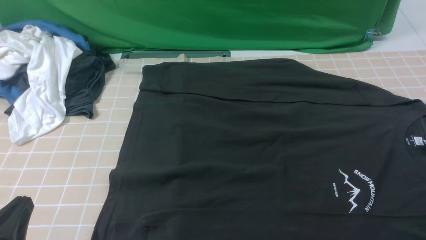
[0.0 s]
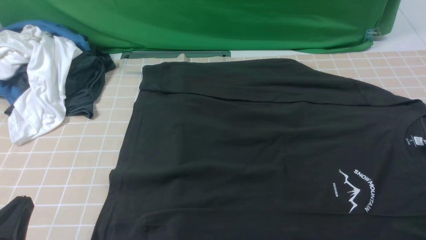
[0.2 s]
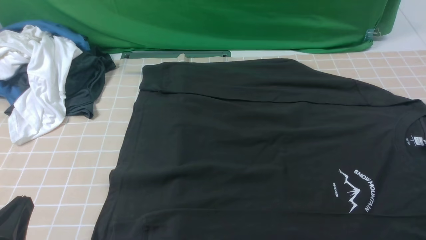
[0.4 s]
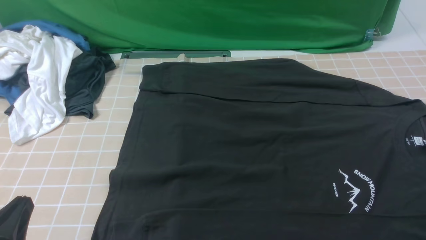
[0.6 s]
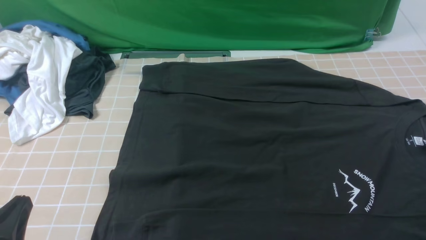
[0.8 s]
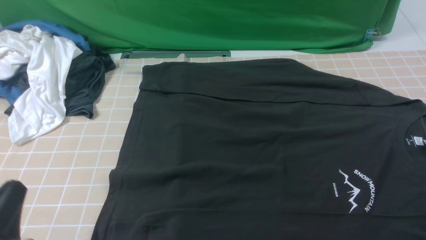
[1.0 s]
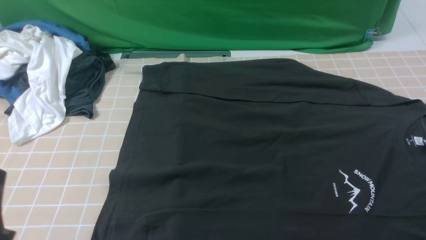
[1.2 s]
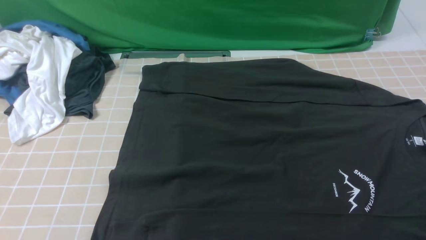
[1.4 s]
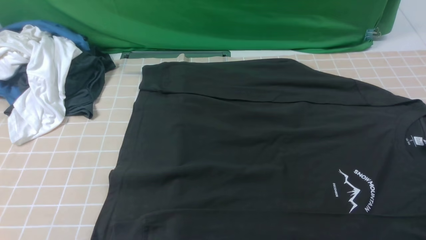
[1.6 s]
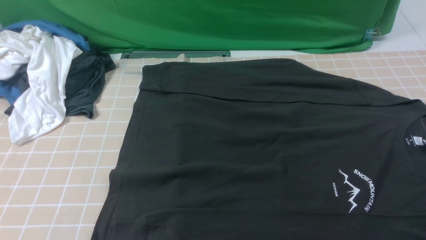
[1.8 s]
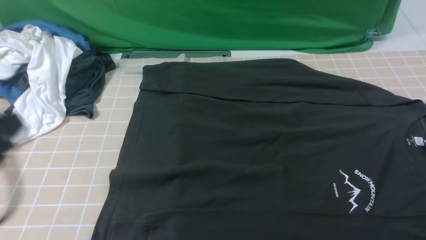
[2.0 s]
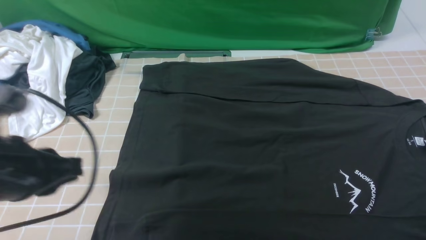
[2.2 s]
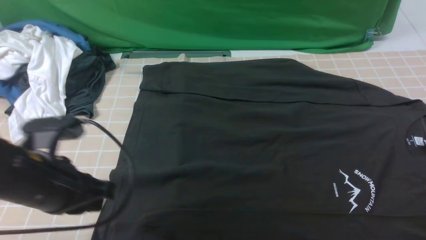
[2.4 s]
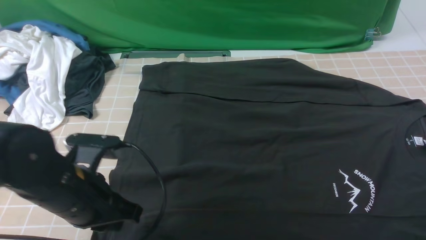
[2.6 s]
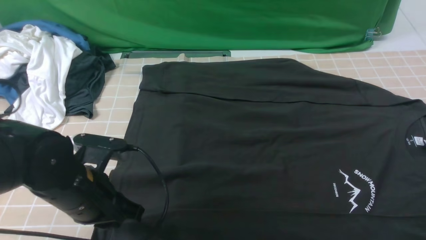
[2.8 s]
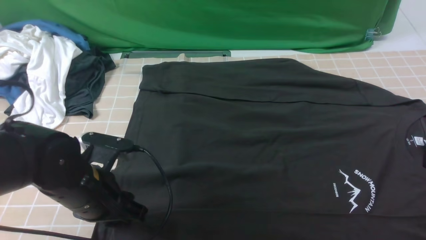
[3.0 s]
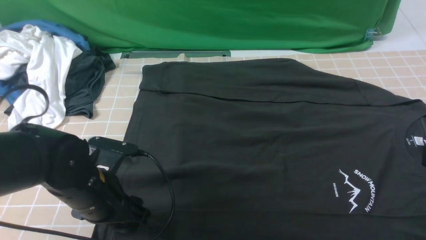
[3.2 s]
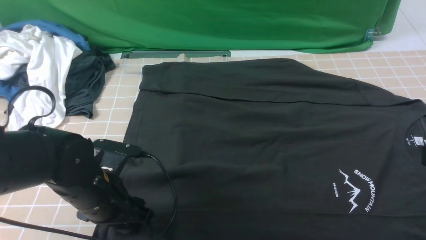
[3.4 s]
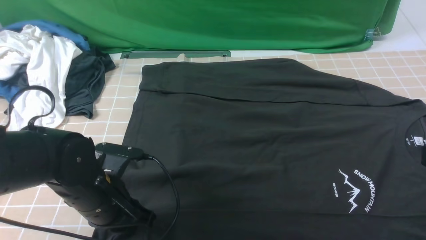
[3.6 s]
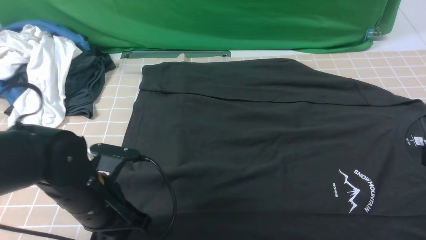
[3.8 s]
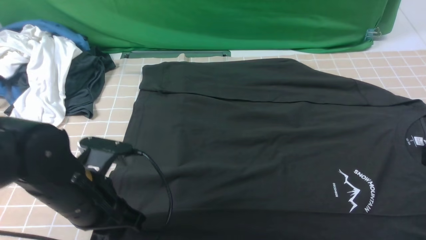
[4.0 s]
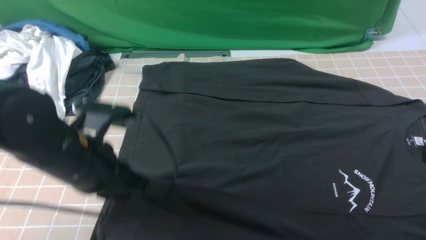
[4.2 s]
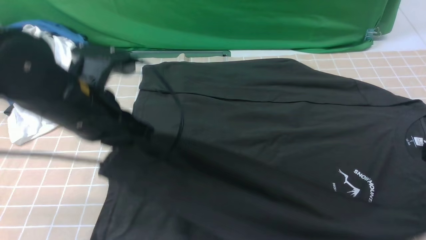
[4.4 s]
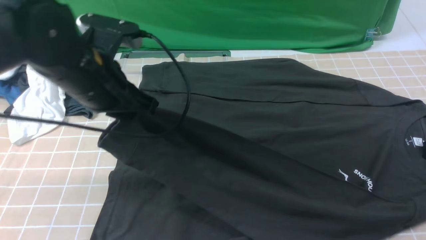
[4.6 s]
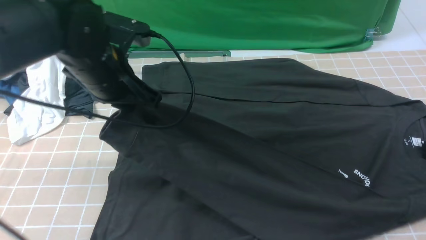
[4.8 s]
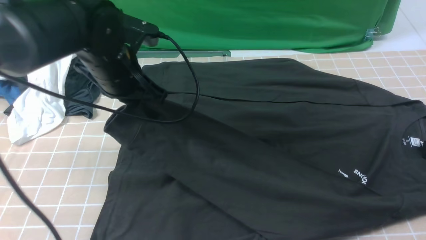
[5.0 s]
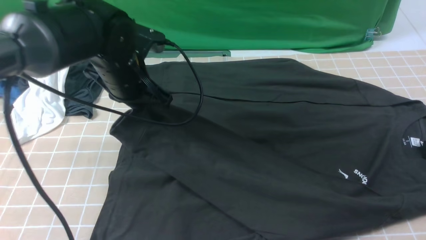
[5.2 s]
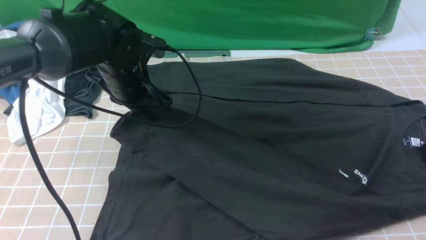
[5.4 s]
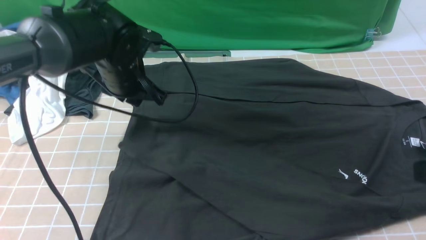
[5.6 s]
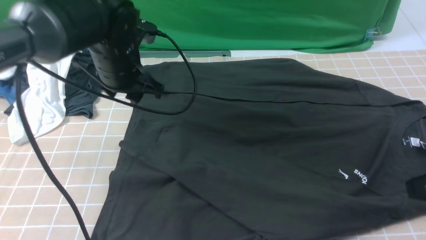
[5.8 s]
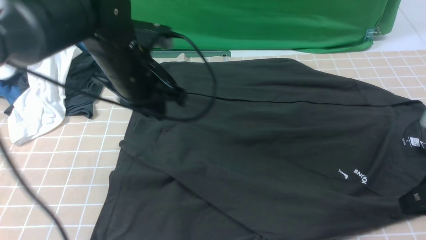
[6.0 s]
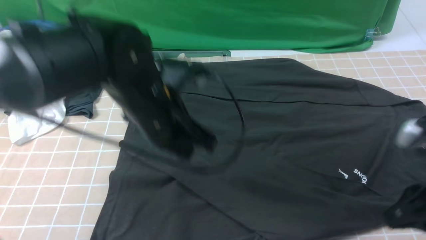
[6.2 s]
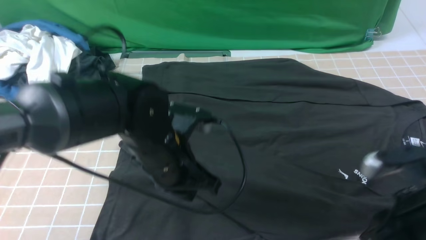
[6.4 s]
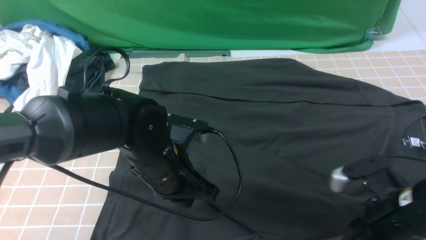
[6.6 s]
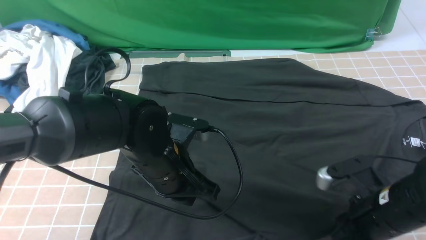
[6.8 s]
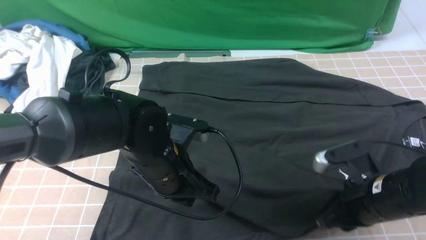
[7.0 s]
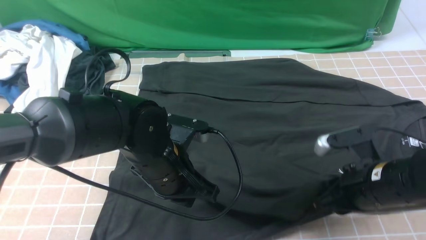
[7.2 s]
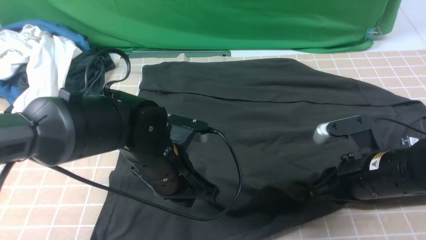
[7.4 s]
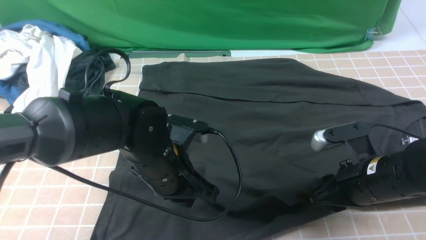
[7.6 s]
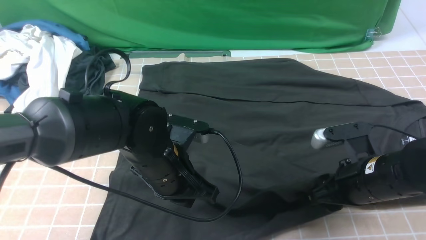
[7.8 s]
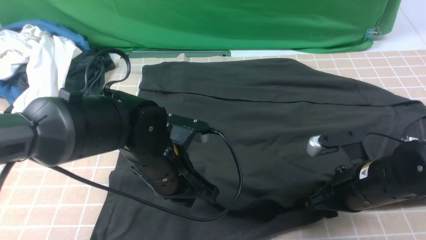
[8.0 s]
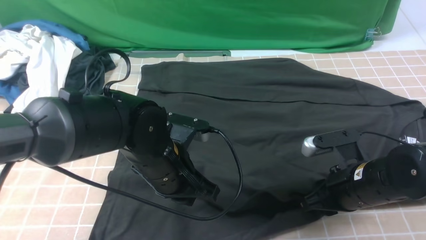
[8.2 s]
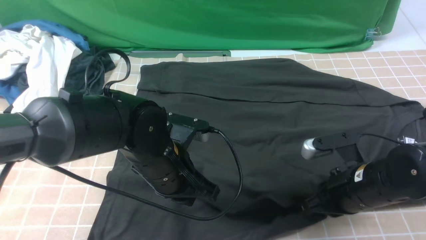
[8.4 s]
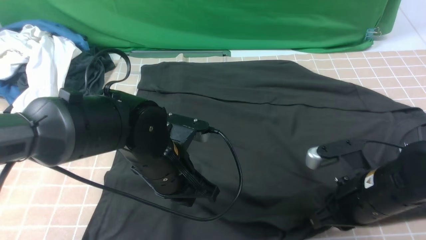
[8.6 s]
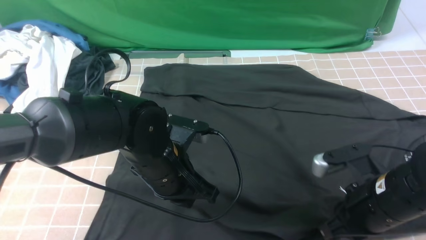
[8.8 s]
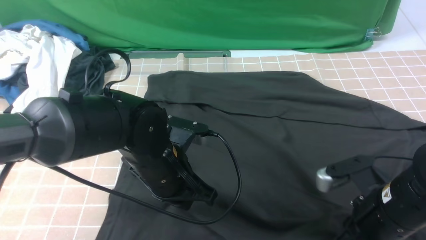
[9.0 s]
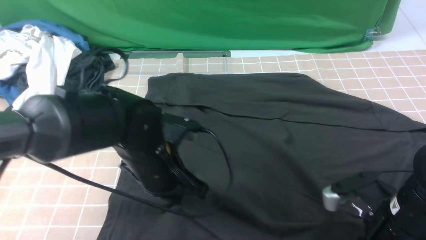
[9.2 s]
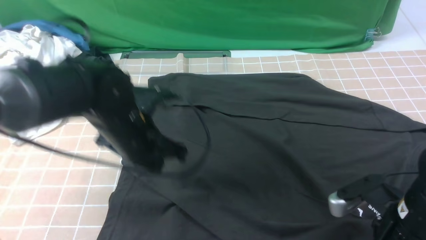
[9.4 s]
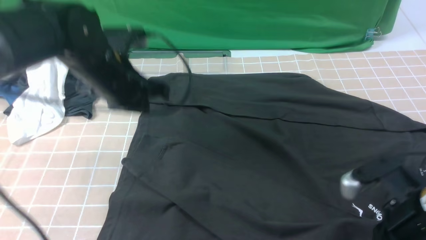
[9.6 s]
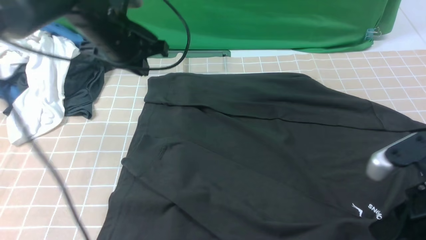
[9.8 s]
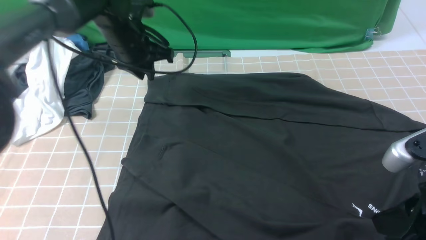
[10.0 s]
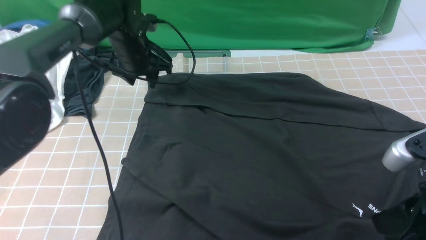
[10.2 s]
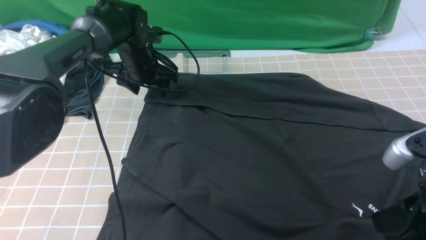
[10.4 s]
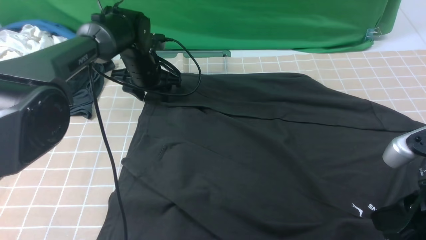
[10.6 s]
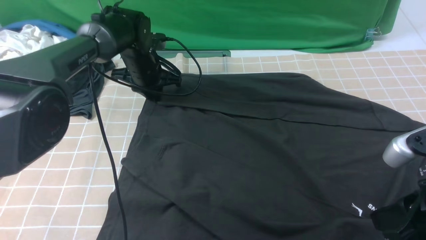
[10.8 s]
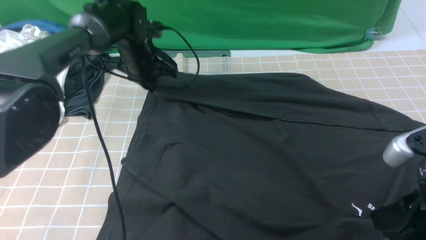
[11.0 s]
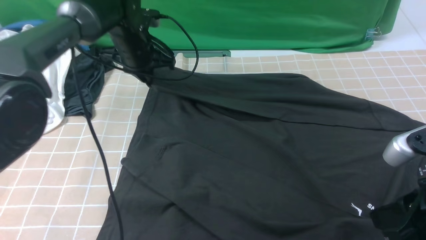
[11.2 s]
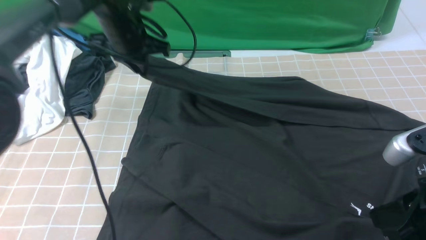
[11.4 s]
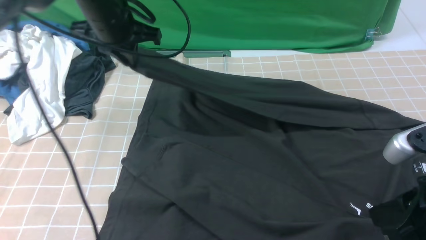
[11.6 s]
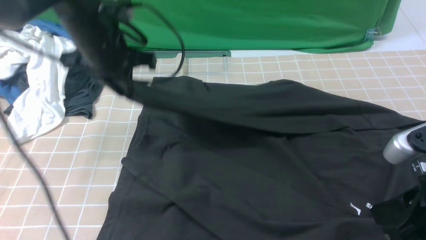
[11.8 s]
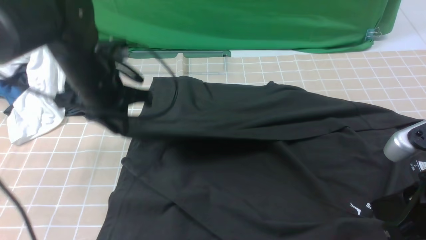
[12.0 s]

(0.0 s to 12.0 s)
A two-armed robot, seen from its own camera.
Step, 0.0 s - 3.4 s: use the left arm to clamp the cuff closest to it.
Step, 3.8 s - 5.6 s: use the left arm to drag and place the cuff at the centered position on the left edge of the fabric.
Step, 5.8 s - 10.8 s: use the left arm to clamp the cuff farthest from it.
0.0 s - 1.6 s: The left gripper moves upward, about 10 cm.
1.6 s - 3.0 s: The left gripper moves forward, downward and to the right, approximately 20 cm, and opens.
3.0 s - 4.4 s: The left gripper goes about 10 cm upward, and closes.
4.4 s - 6.0 s: The left gripper goes approximately 10 cm forward and to the right. Meanwhile the right gripper changes place by about 5 cm.
6.0 s - 7.6 s: The left gripper goes roughly 10 cm downward and backward. The right gripper travels downward, to the left and forward by some 15 cm, and opens its fingers.
7.6 s - 9.0 s: The right gripper closes its fingers.
9.0 s - 10.4 s: The left gripper goes about 25 cm forward, and opens up. The right gripper moves upward and backward, about 10 cm.
10.4 s - 12.0 s: The left gripper goes about 15 cm backward and upward, and closes up.

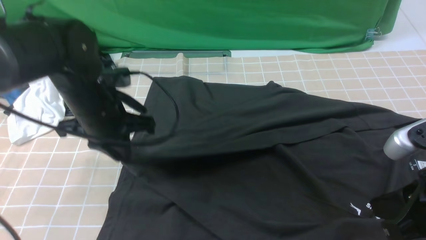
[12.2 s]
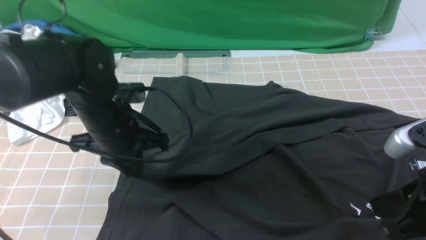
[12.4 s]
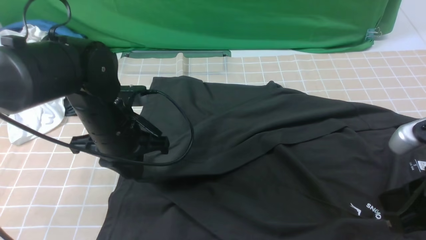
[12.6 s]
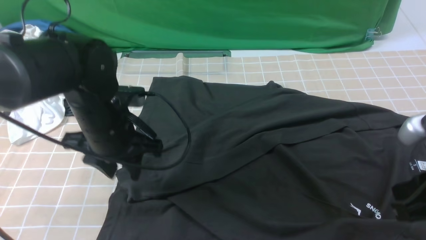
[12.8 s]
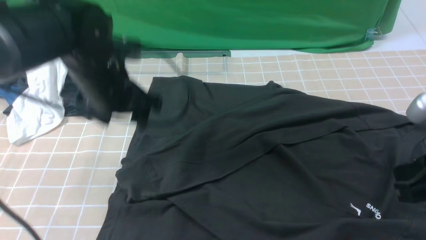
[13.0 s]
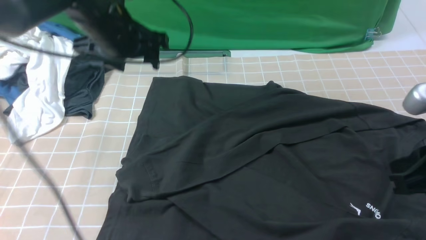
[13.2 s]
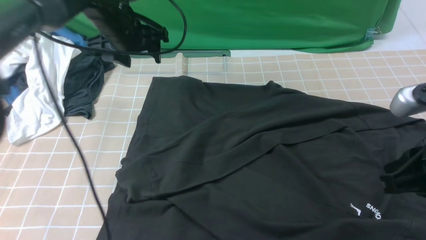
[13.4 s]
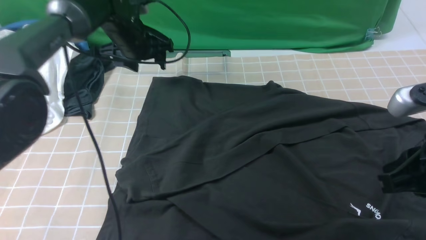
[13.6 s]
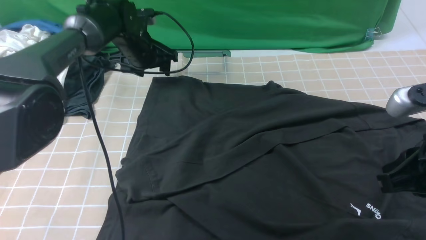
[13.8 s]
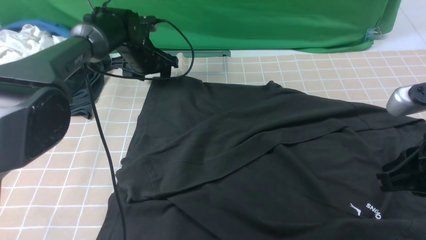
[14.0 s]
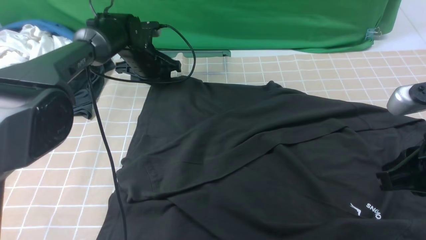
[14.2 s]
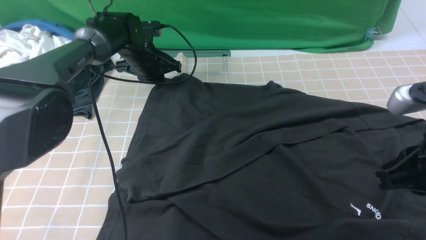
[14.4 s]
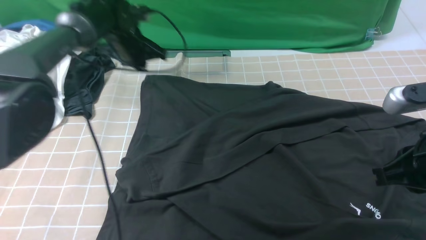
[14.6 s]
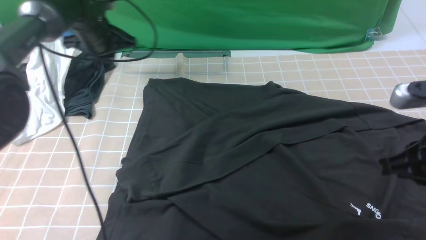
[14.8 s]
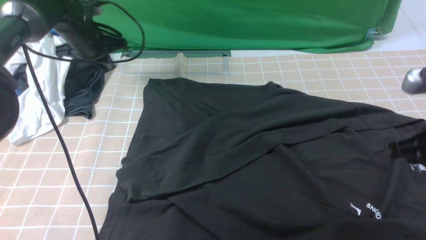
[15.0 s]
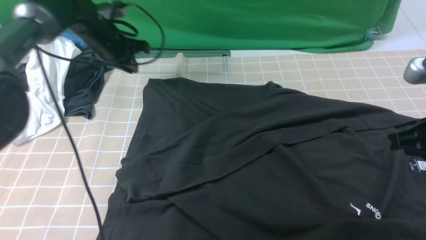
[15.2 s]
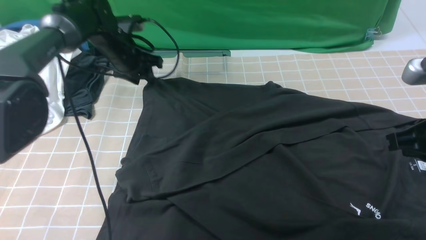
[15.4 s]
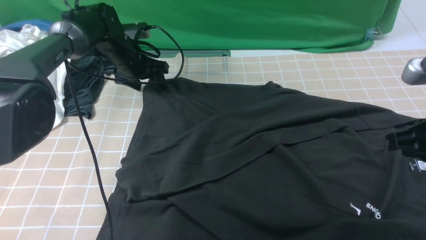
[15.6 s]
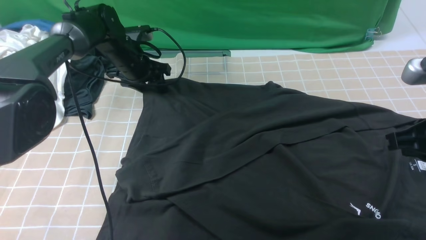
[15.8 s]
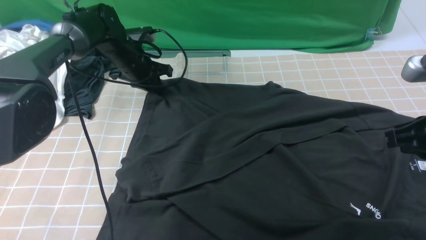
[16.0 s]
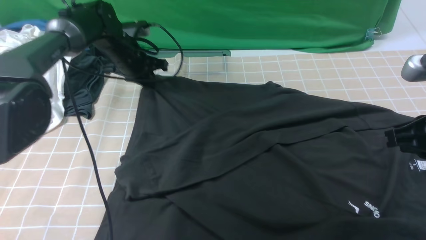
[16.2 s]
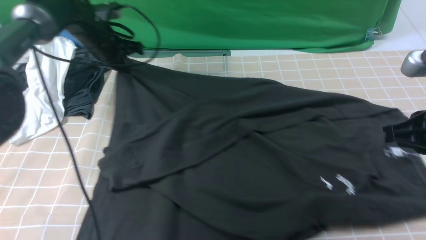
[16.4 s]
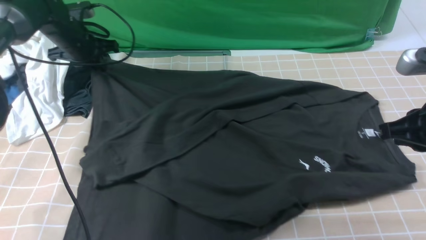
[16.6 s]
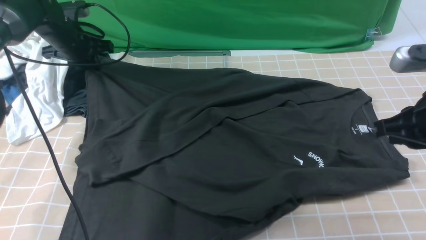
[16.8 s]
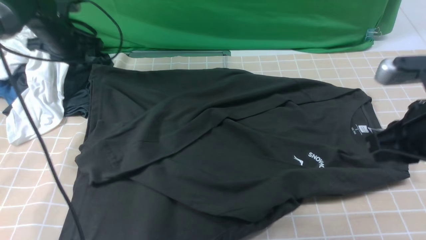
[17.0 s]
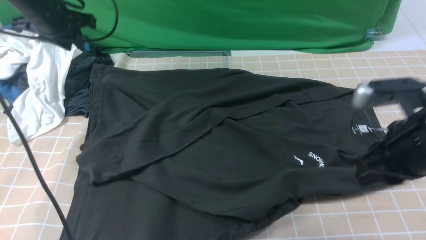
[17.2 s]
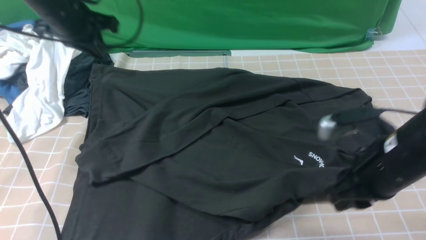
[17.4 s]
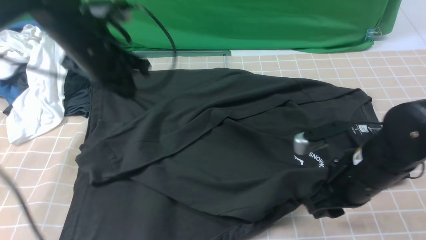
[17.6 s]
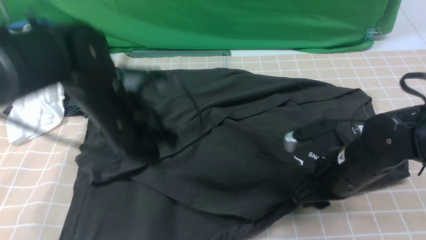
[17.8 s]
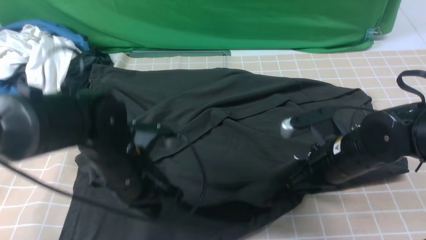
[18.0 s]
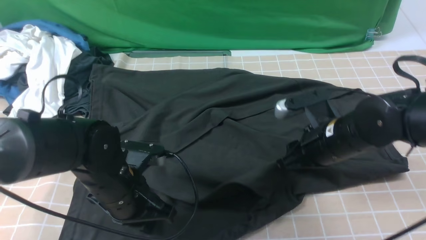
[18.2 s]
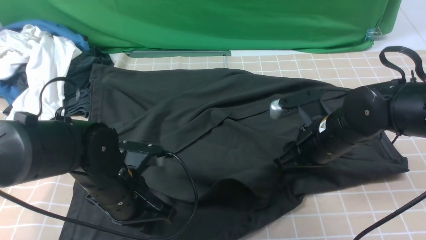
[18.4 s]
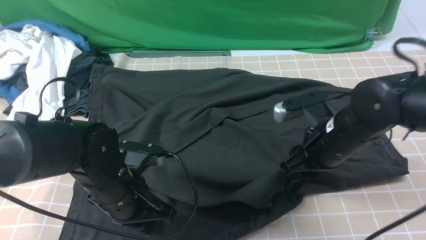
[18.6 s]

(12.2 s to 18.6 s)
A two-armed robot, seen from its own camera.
12.2 s - 13.8 s: The left gripper travels forward by roughly 20 cm, and opens its fingers.
13.8 s - 15.4 s: The right gripper moves about 5 cm; the left gripper closes, then reopens.
15.4 s - 17.0 s: The left gripper moves to the left and upward, approximately 10 cm, and closes.
17.0 s - 18.6 s: The right gripper heads to the left, downward and forward, covering roughly 15 cm, and opens up. The left gripper travels backward and to the right by about 30 cm.
